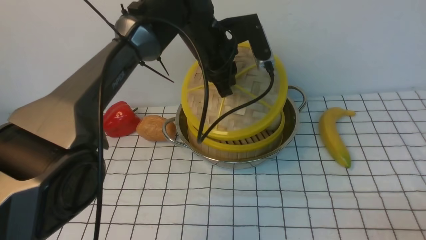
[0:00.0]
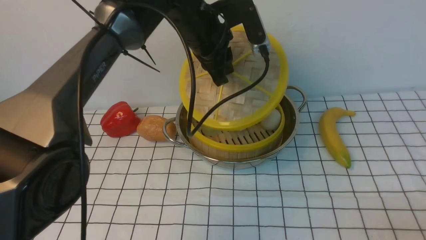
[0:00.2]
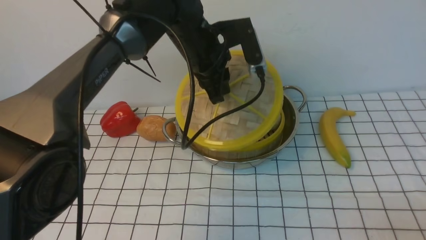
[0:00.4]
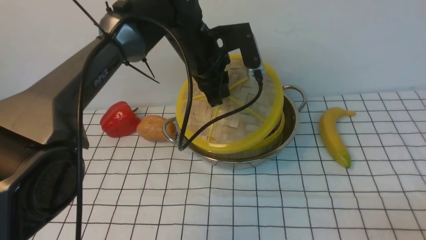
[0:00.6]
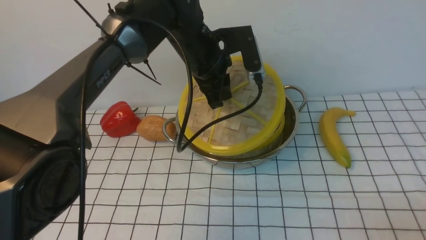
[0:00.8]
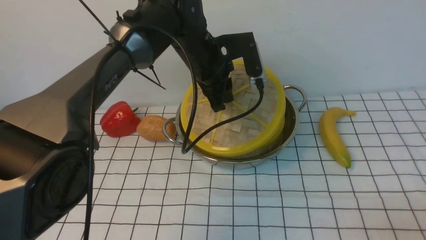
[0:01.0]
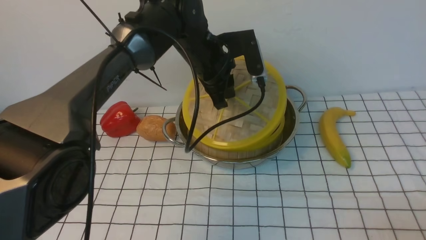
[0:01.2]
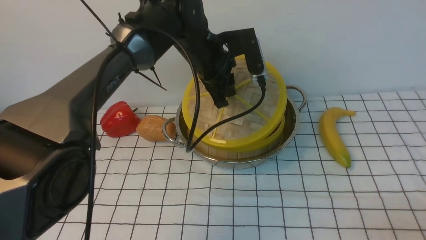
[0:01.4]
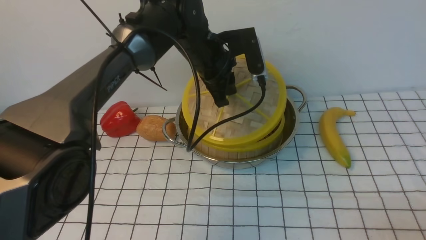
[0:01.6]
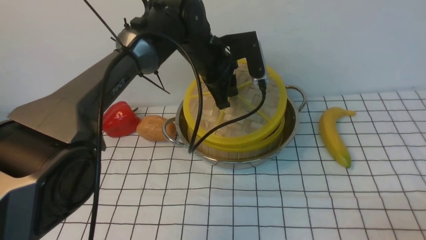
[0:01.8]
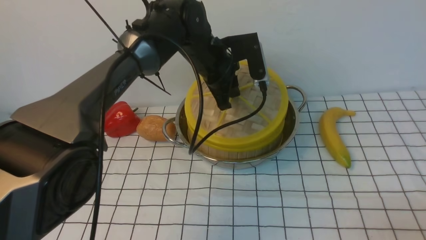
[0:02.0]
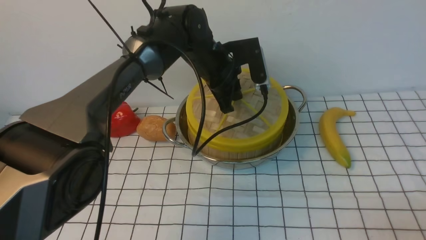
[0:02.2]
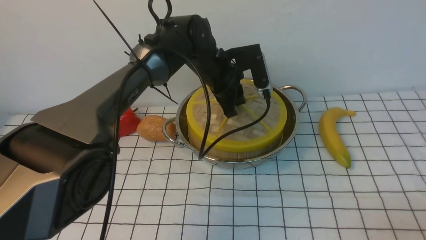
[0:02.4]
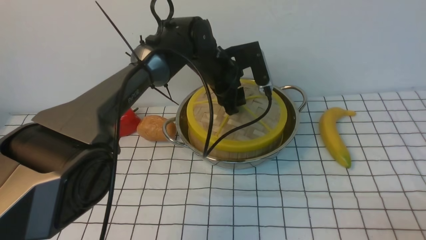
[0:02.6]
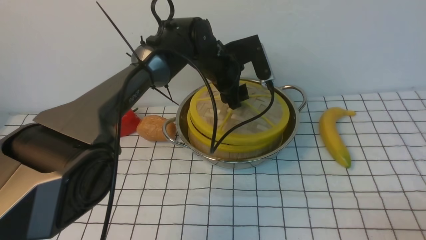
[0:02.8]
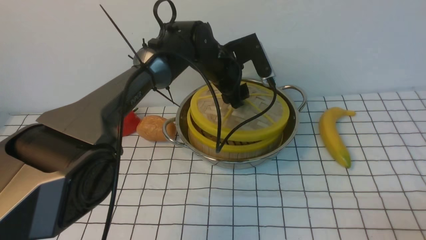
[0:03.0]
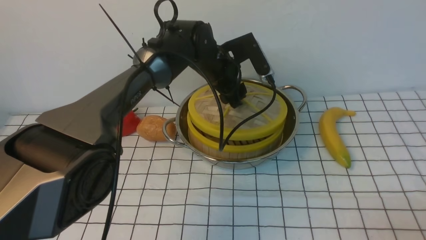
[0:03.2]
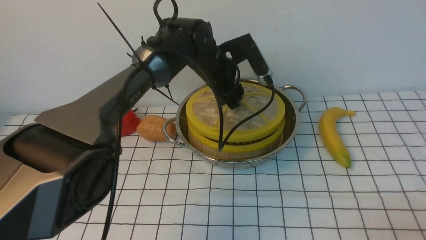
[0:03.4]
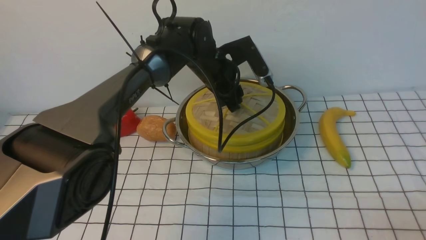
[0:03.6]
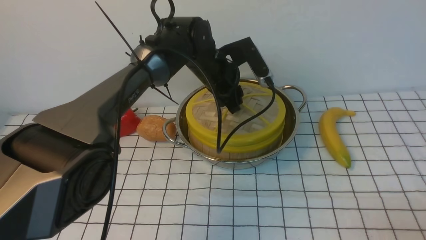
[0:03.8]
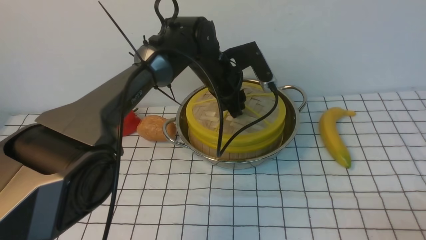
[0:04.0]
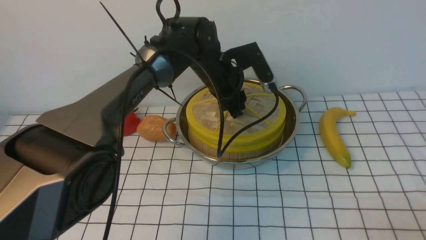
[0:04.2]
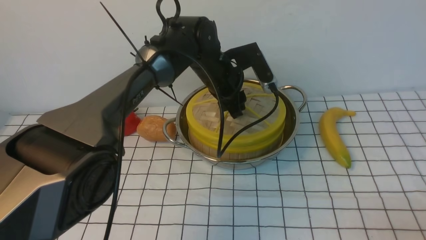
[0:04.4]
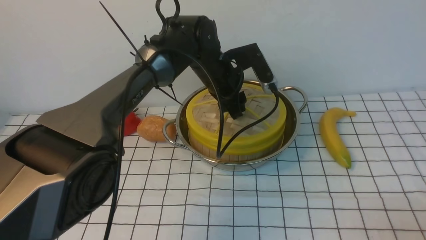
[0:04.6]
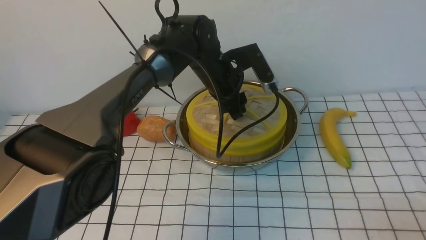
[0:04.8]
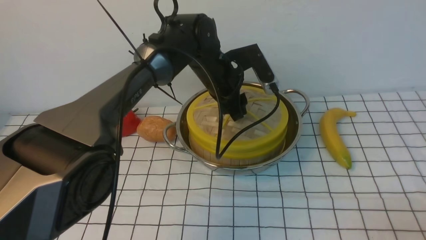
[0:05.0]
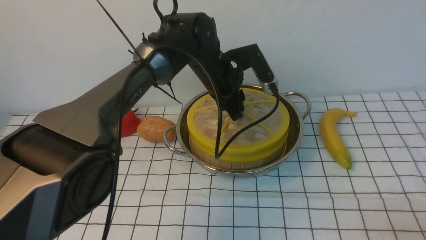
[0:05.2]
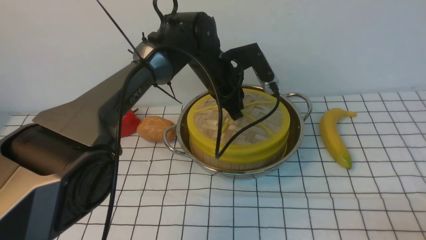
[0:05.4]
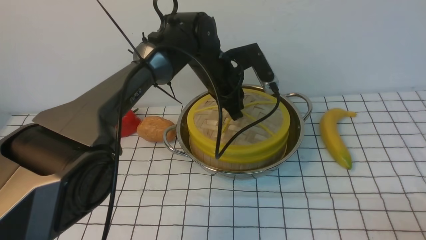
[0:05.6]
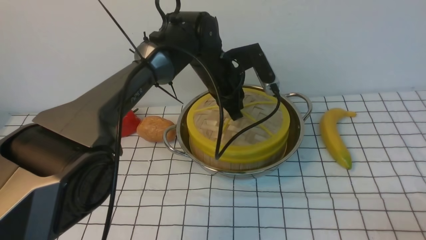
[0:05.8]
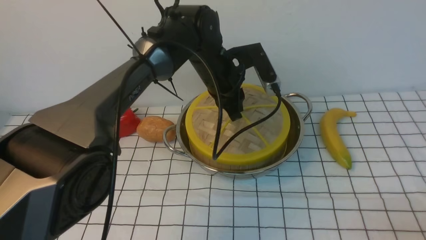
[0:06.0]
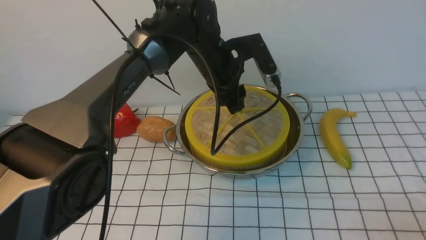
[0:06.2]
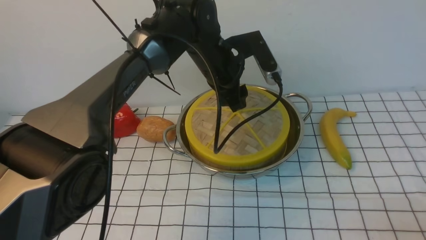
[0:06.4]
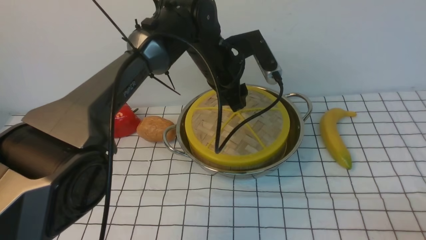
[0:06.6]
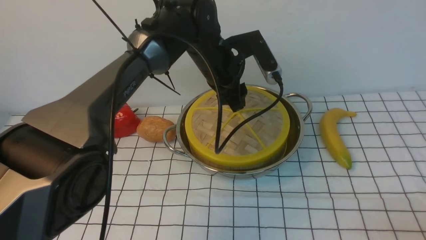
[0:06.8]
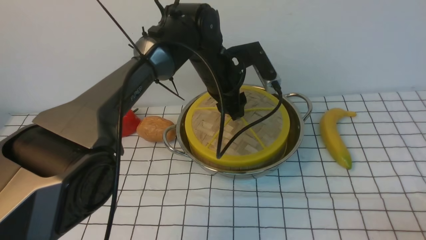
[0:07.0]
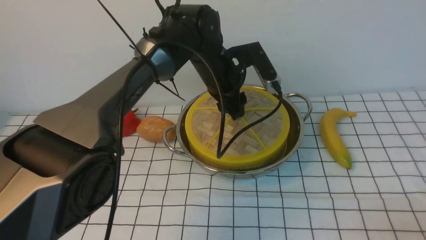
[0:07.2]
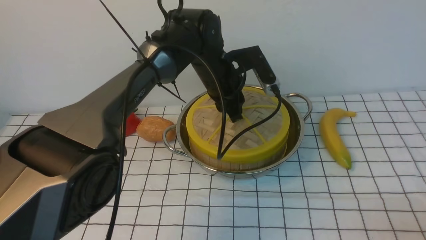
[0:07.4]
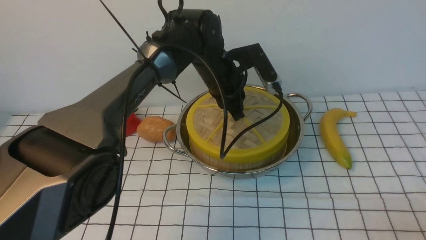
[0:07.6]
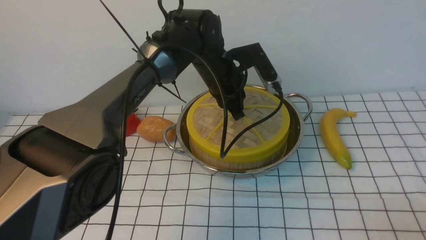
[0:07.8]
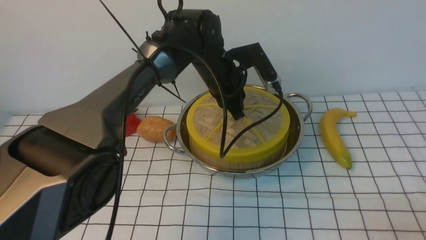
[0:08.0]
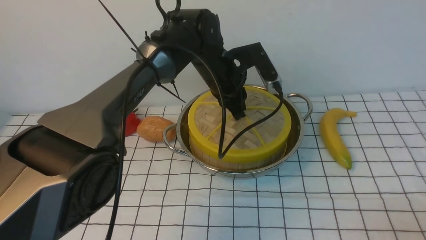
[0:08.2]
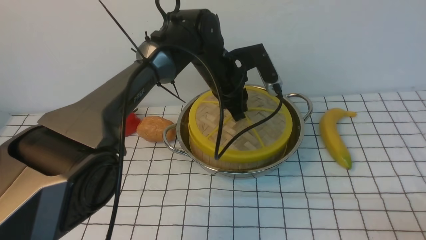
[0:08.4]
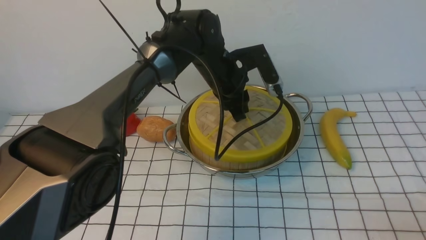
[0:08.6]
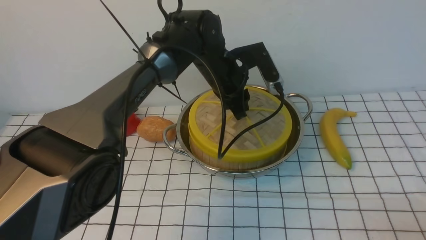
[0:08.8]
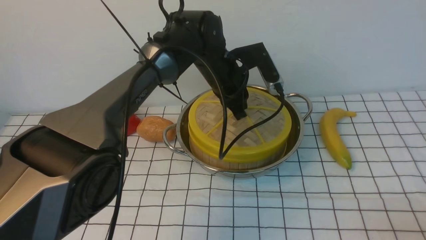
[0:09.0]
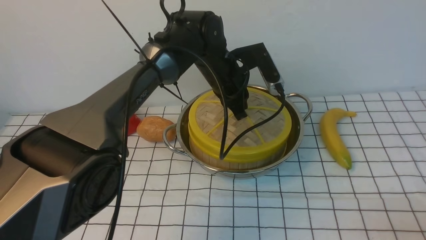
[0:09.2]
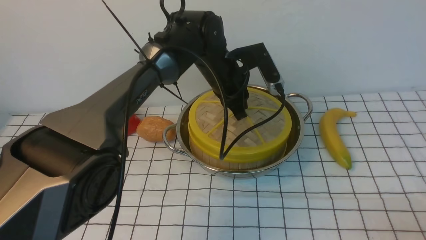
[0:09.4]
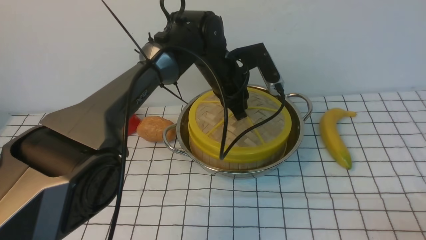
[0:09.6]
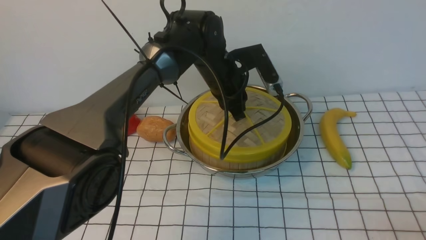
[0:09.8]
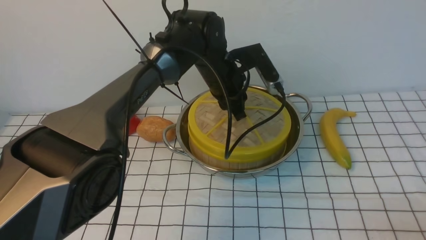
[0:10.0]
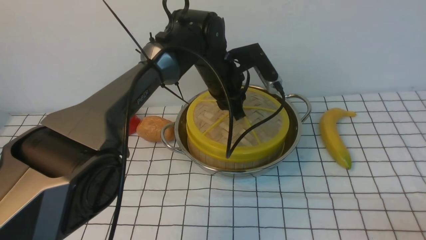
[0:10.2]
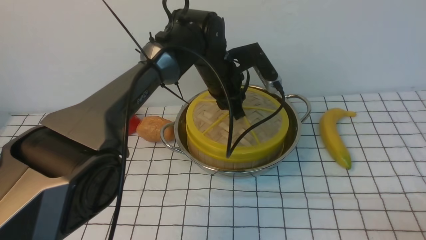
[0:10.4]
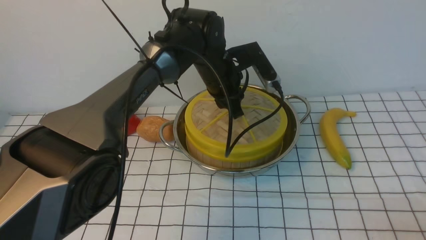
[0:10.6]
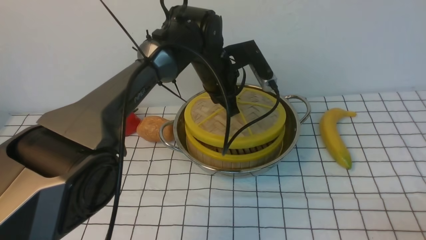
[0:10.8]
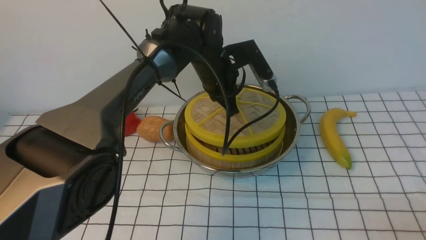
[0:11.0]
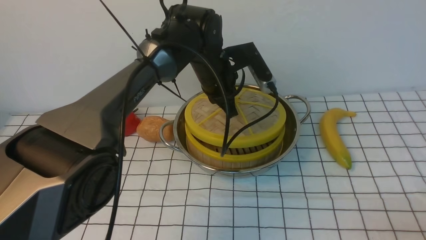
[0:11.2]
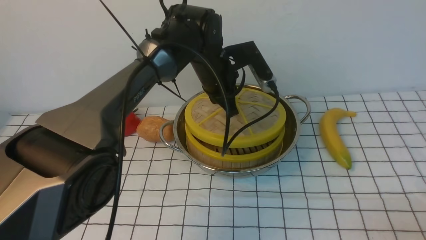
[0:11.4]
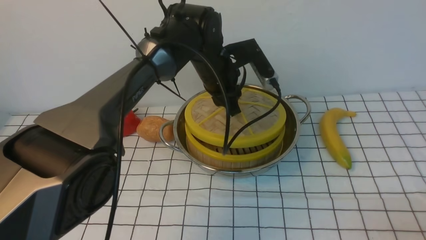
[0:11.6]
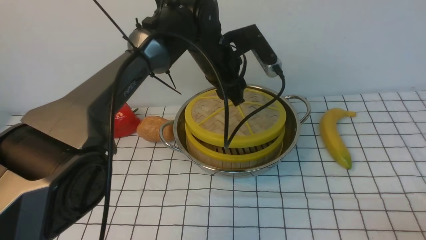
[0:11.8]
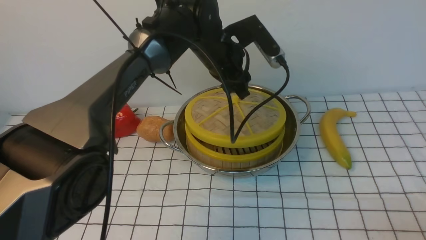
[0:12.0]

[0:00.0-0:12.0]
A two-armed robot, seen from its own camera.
Task of the whole recording: place the steamer in the pot on the white tablecloth, and put the lid on the steamer.
0:00.0 to 0:01.6: The grippers stay close to where they were, moving slightly.
0:01.6 to 0:03.0: The left gripper moves approximately 5 cm, and opens.
0:03.0 to 0:04.4: There are only small adjustments of the grippers.
0:04.4 to 0:06.0: The left gripper closes its fingers.
0:06.0 to 0:07.6: The left gripper opens, then closes once more.
0:07.6 to 0:09.0: Both grippers stay put.
0:09.0 to 0:10.4: The grippers move only a little.
0:10.4 to 0:12.0: The left gripper opens.

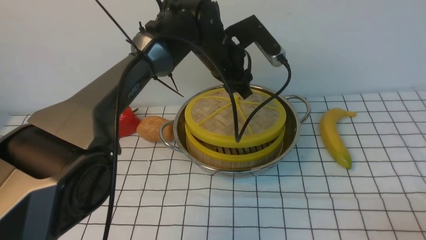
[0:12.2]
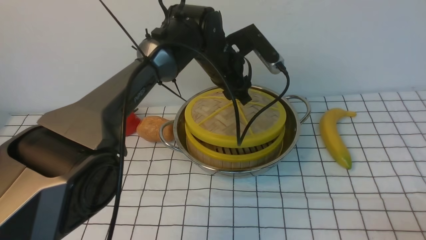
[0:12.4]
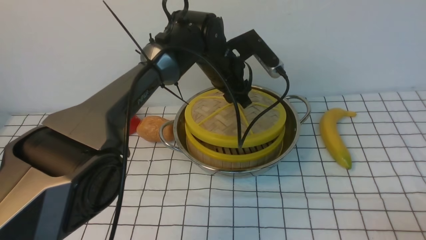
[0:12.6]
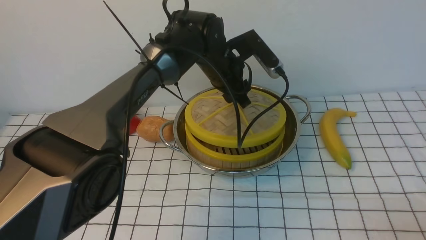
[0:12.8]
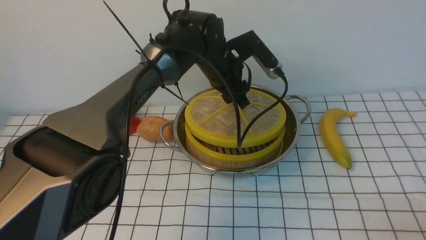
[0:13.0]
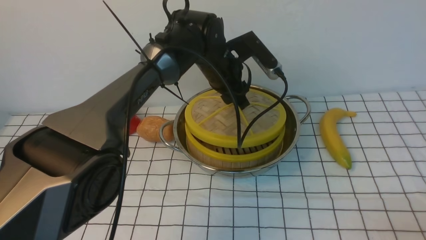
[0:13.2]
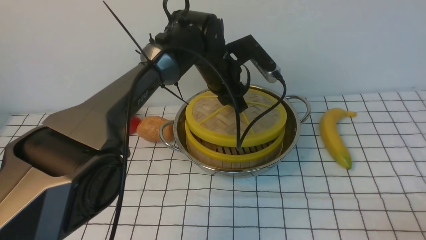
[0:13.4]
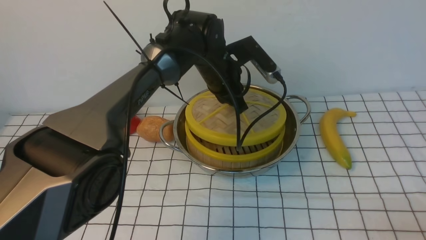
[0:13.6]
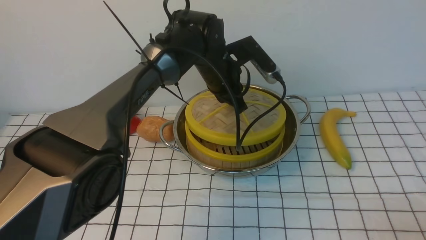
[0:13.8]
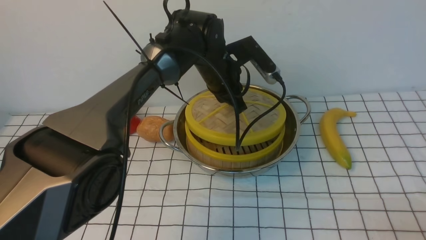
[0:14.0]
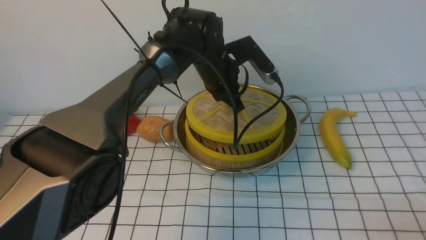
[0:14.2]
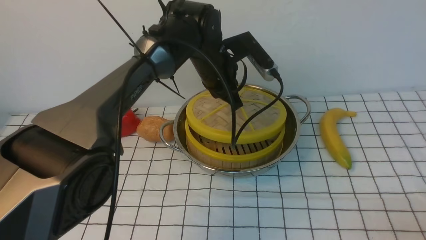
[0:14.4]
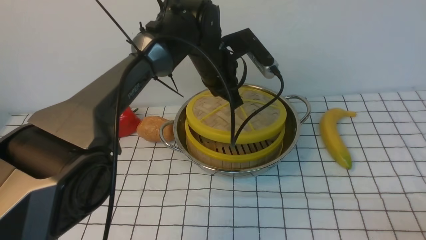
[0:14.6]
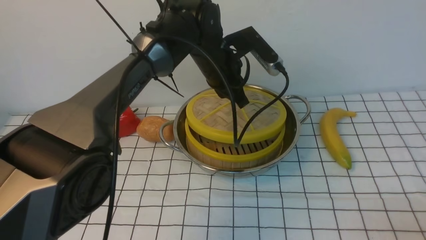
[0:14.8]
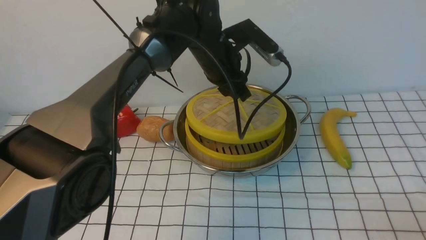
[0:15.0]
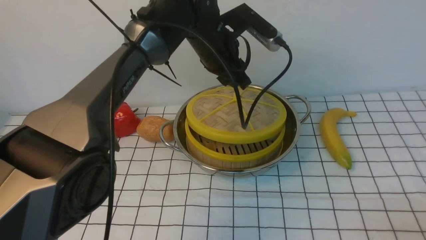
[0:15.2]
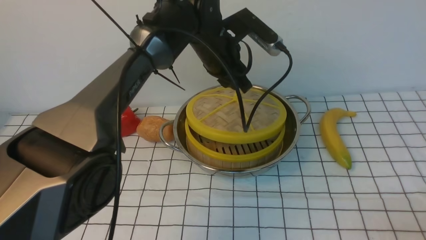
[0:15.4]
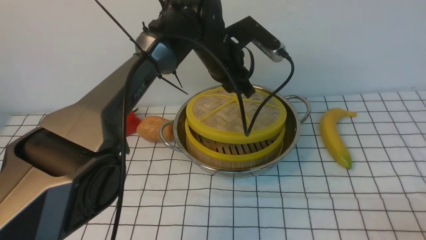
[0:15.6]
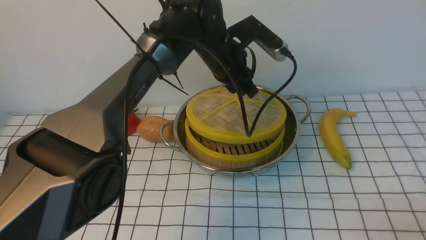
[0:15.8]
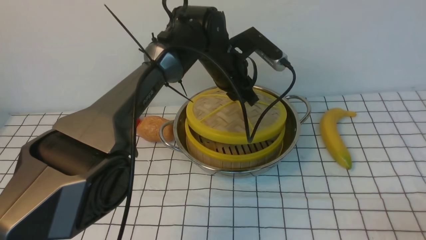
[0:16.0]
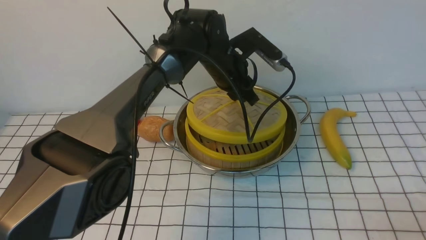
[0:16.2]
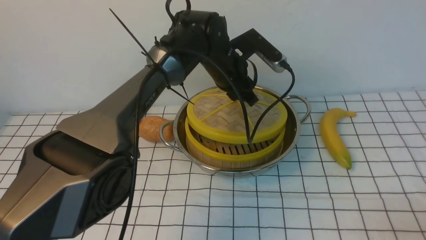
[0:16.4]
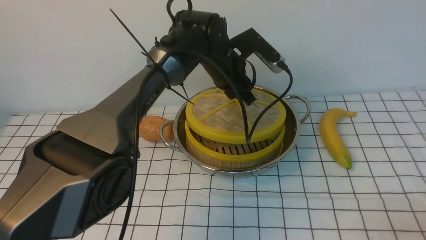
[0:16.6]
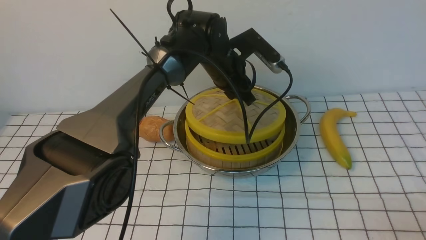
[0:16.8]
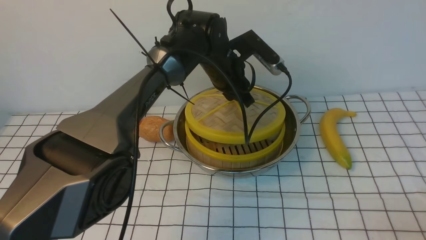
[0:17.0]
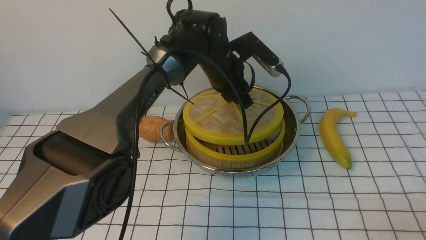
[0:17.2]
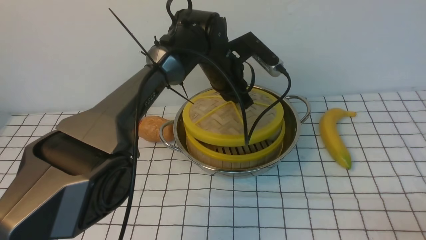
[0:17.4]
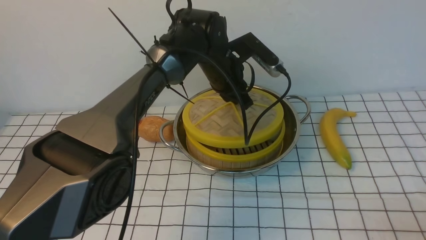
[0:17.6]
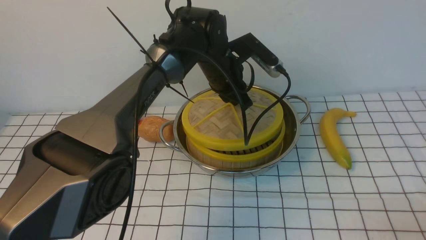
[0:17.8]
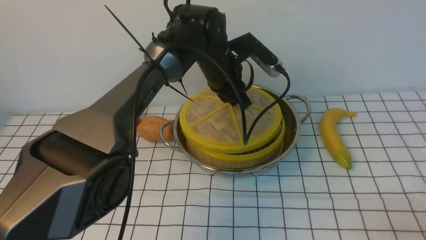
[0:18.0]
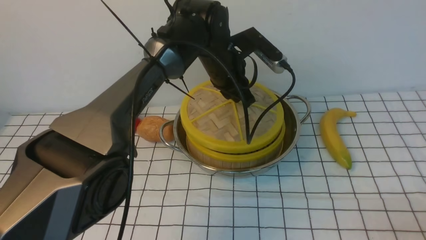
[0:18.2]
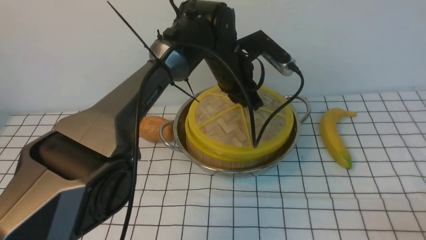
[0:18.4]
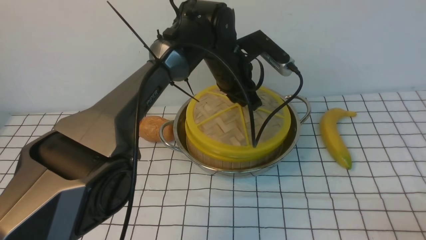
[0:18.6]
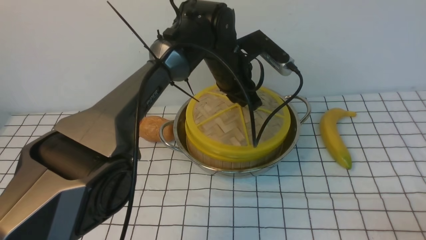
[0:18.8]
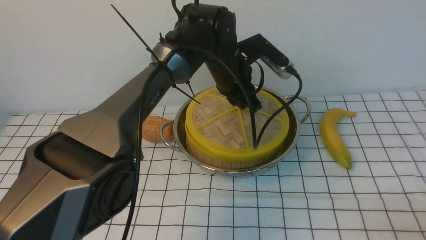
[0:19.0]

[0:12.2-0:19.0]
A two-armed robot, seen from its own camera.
Task of the whole recording: place the steamer in the pot on the white tablecloth, and put the lid on the steamer.
0:12.2 to 0:13.6: The left gripper closes.
0:13.6 to 0:15.0: The grippers make only small movements.
0:16.2 to 0:17.6: Neither gripper changes place.
0:17.6 to 0:19.0: The grippers stay close to where they were, moving slightly.
